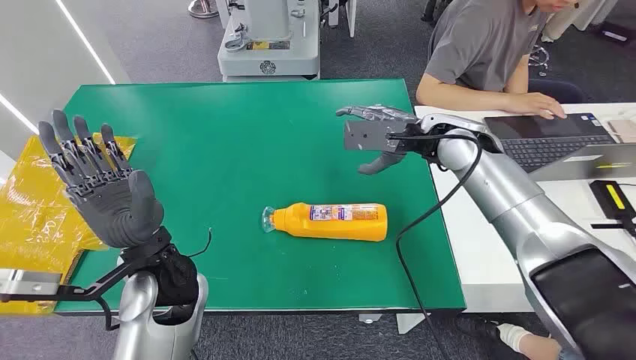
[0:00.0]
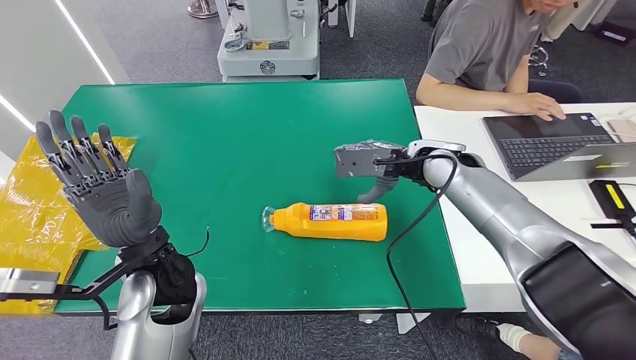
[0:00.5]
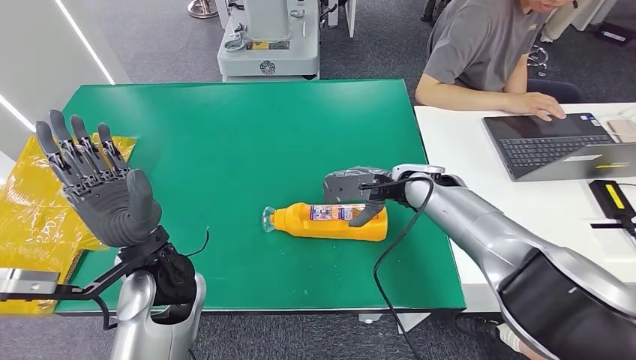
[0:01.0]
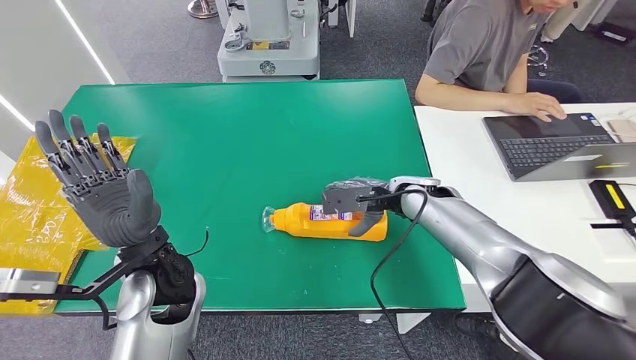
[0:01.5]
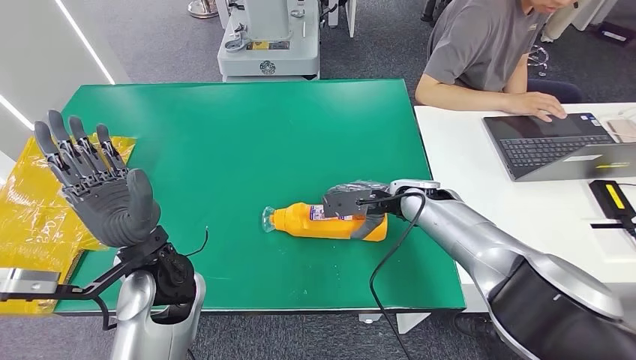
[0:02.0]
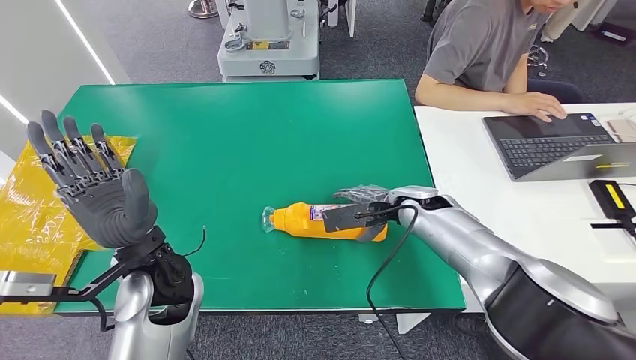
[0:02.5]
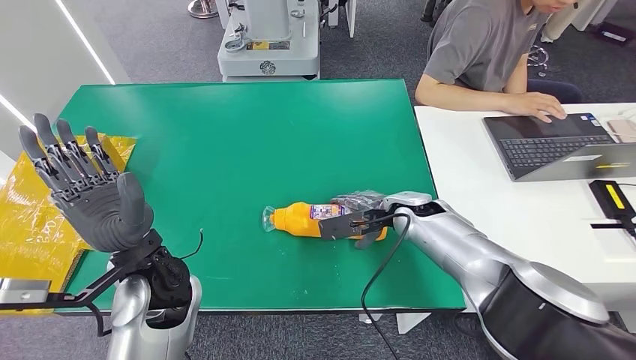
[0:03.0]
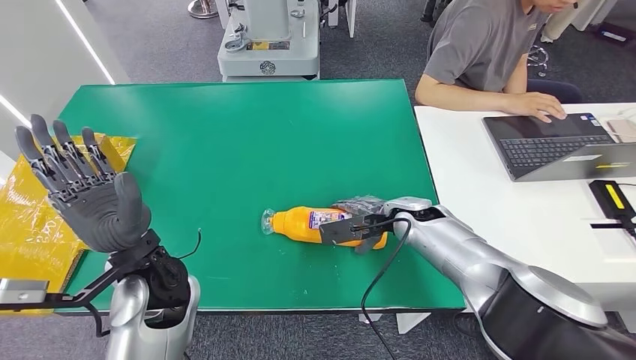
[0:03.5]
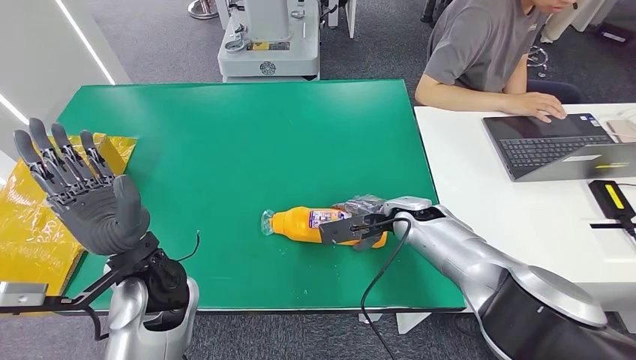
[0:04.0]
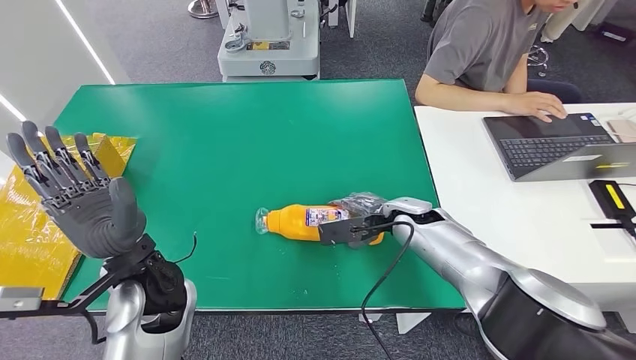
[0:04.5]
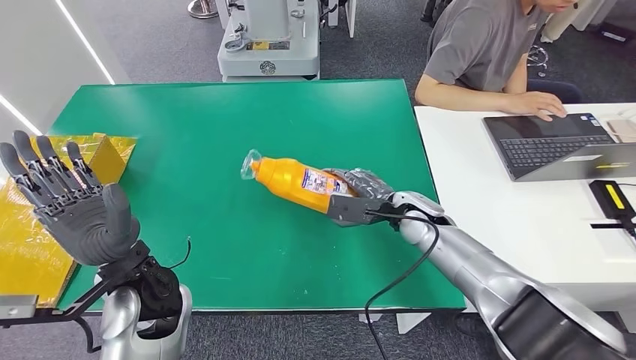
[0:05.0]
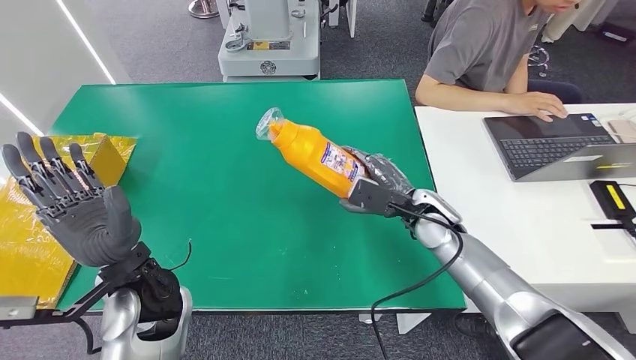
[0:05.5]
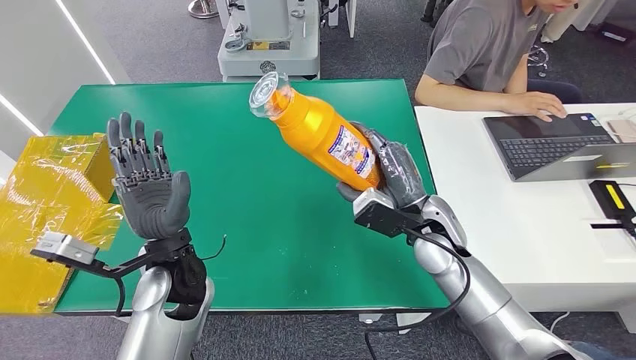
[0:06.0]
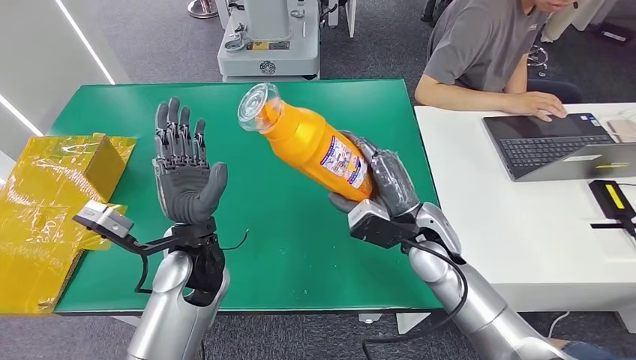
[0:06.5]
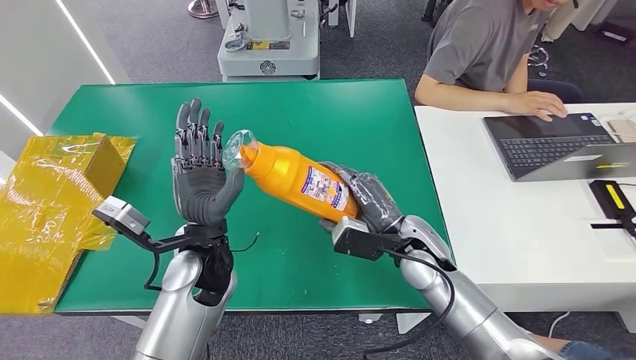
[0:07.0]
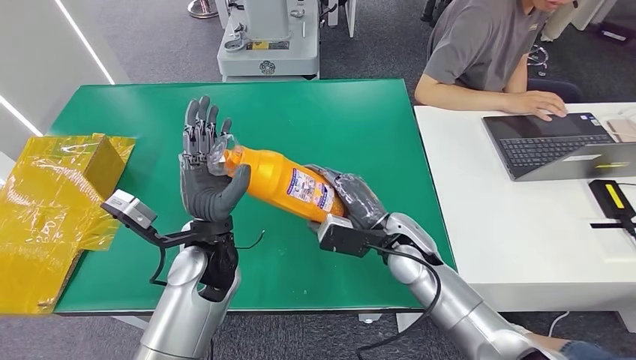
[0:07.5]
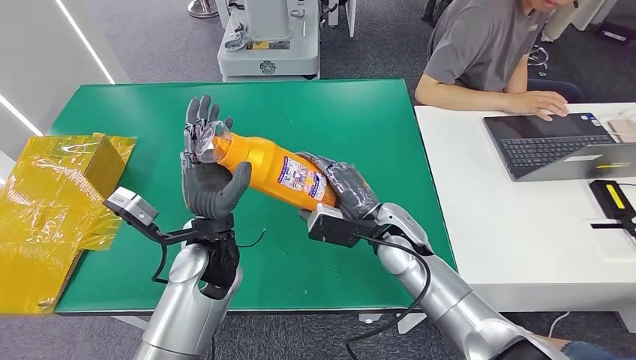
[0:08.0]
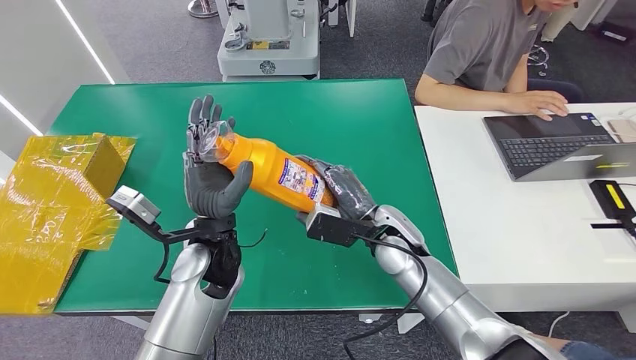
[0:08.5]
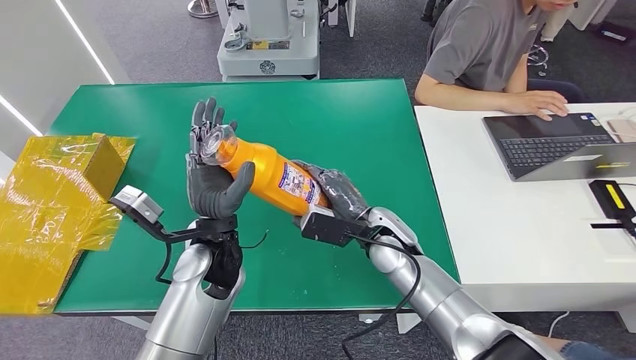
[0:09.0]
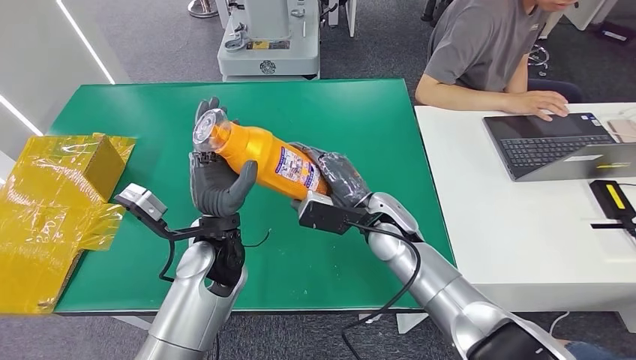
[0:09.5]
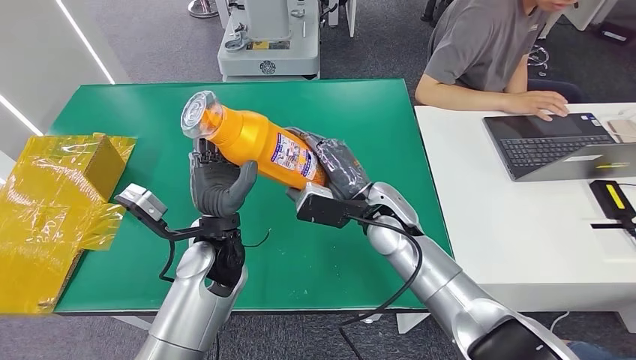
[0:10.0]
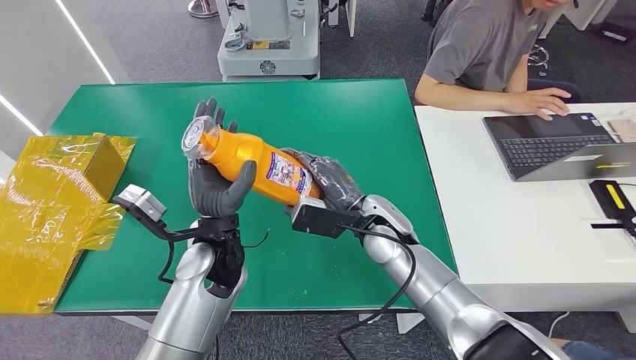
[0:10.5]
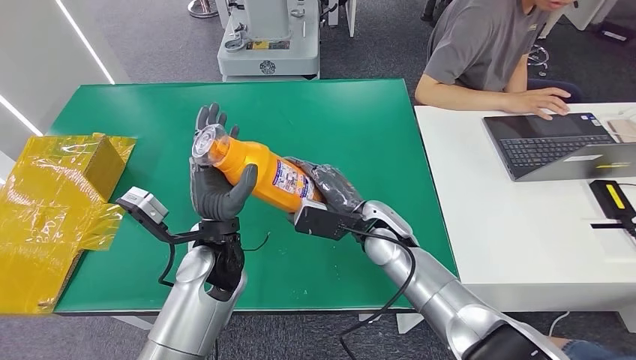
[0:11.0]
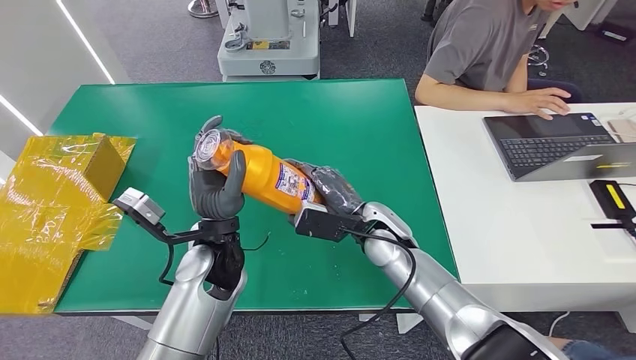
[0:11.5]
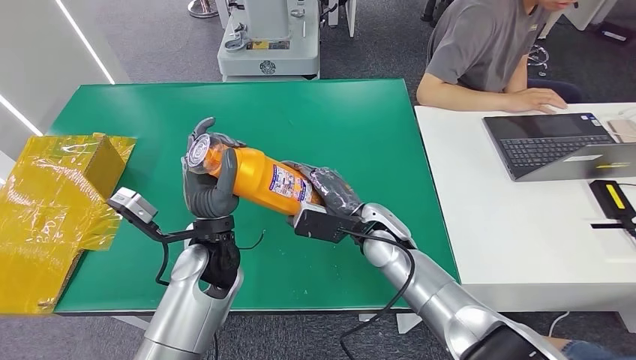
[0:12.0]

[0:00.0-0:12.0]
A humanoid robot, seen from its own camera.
Step, 0:00.0 to 0:06.5: Pick up the bottle from the table.
0:02.0 to 0:04.0: The hands stay close to where they were, moving slightly.
0:08.0 to 0:12.0: The hands make only small movements.

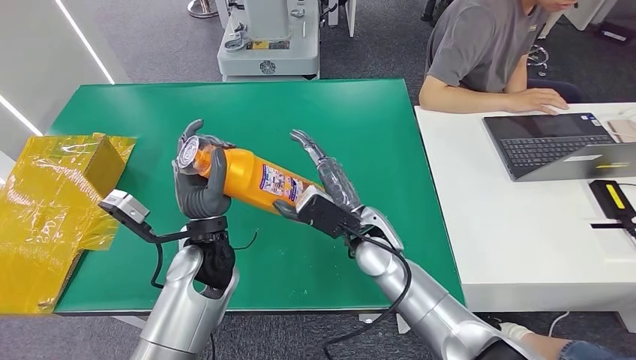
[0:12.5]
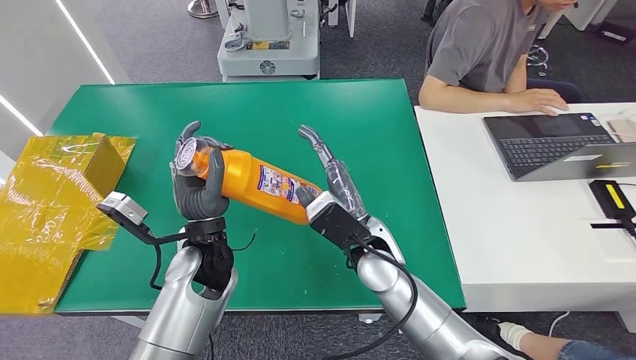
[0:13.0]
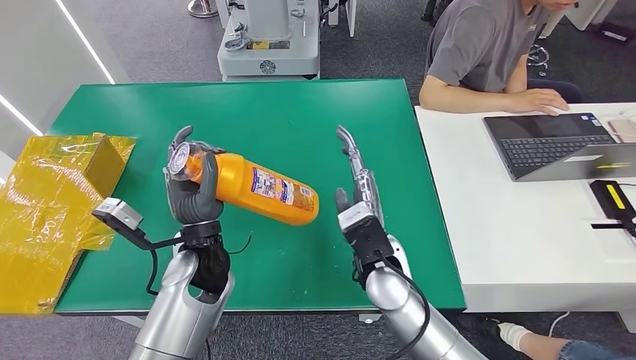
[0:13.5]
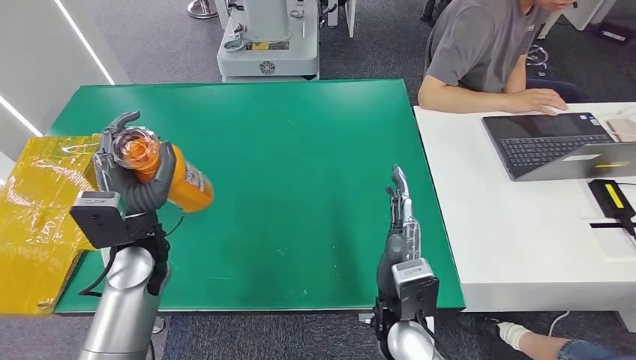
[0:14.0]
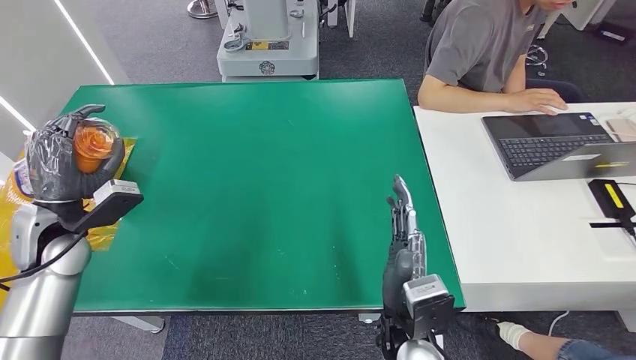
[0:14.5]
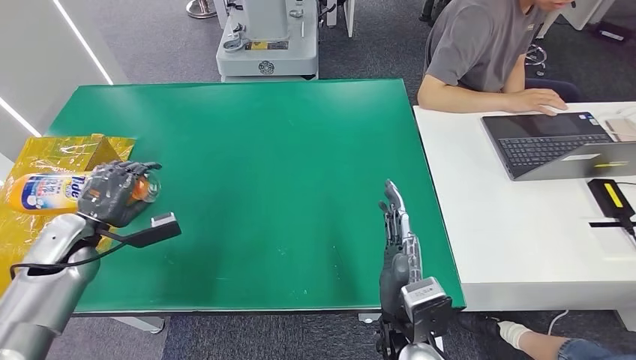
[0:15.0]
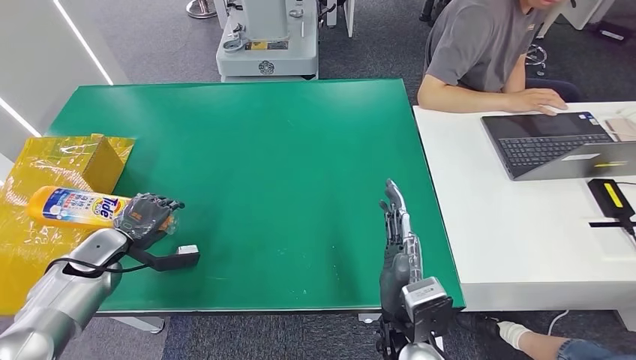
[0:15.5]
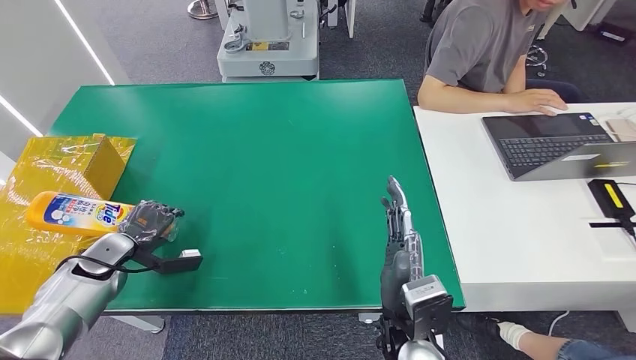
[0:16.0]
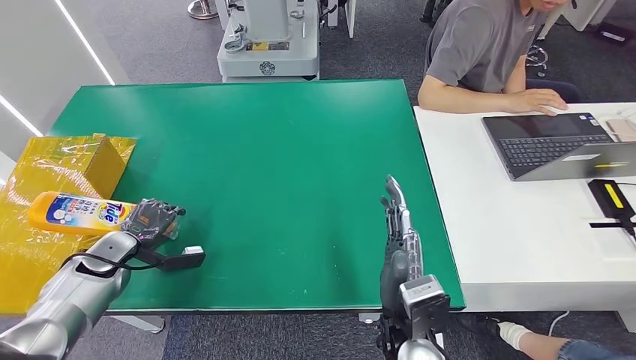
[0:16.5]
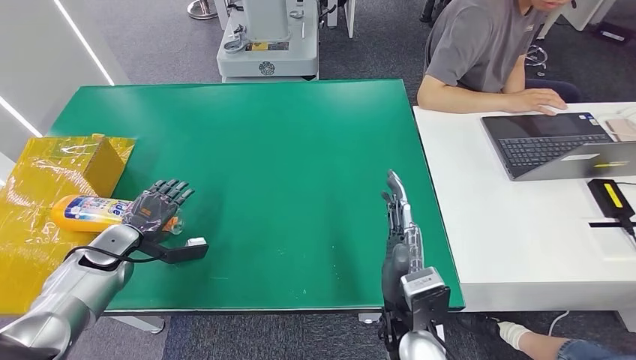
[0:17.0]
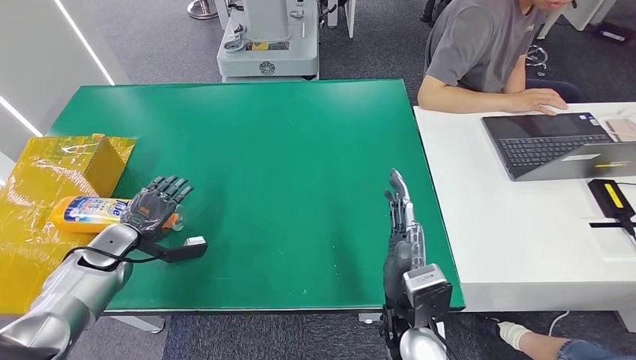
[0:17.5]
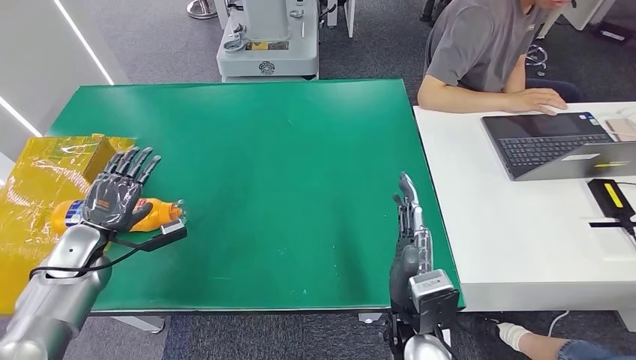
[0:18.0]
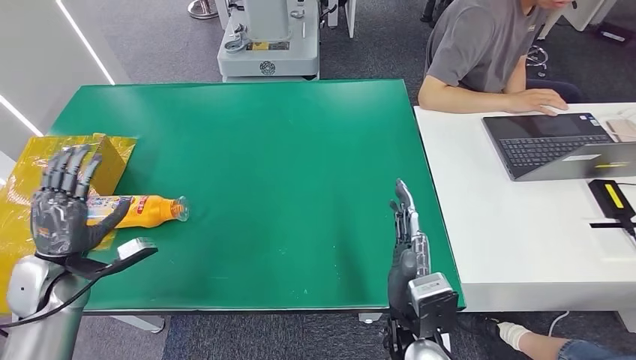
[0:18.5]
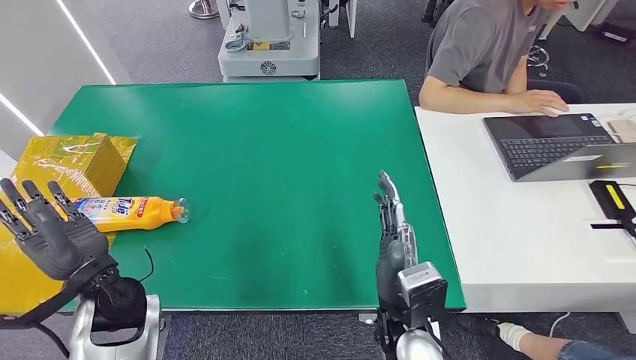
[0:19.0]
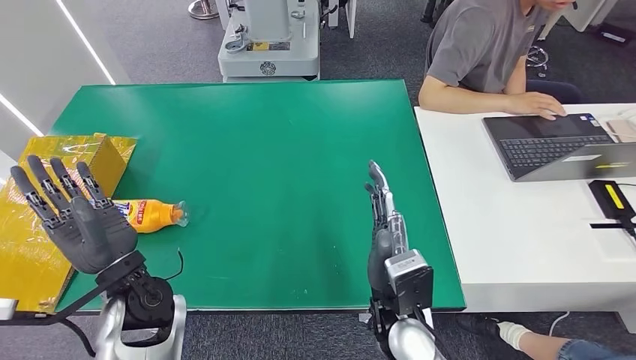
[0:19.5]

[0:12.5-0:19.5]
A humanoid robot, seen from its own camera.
Step, 0:12.5 to 0:19.5: Turn the bottle to the front side.
0:14.5 to 0:16.0: The left hand is displaced downward by approximately 15 cm.
0:16.0 to 0:17.5: The hands make only small movements.
0:17.5 to 0:19.5: The left hand goes roughly 25 cm to the right, upward and backward.

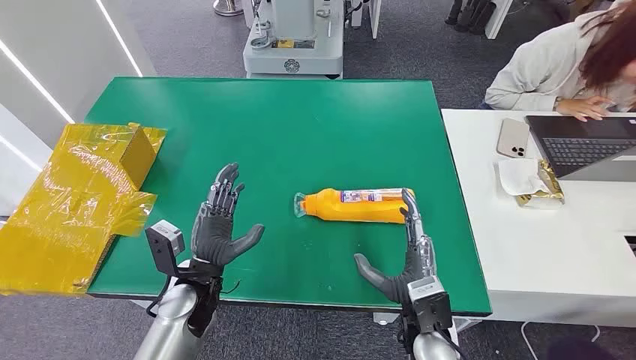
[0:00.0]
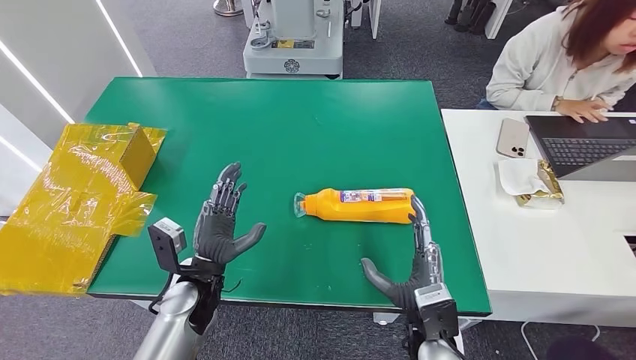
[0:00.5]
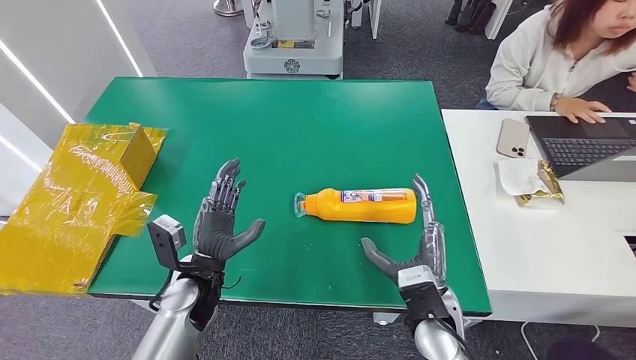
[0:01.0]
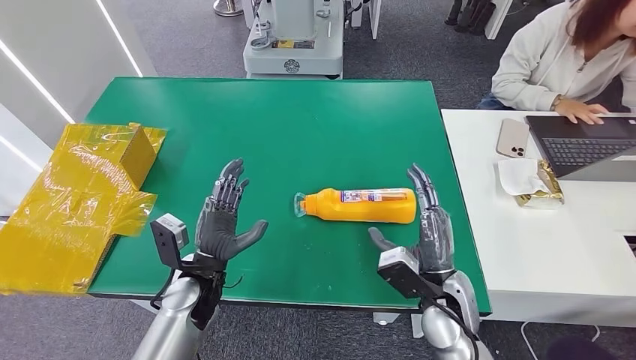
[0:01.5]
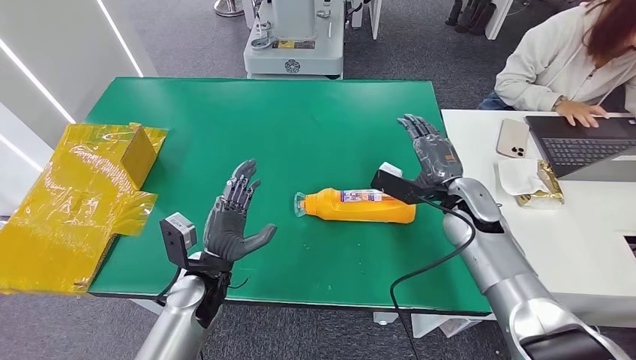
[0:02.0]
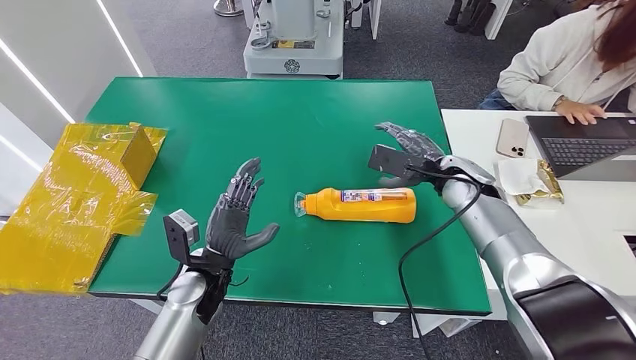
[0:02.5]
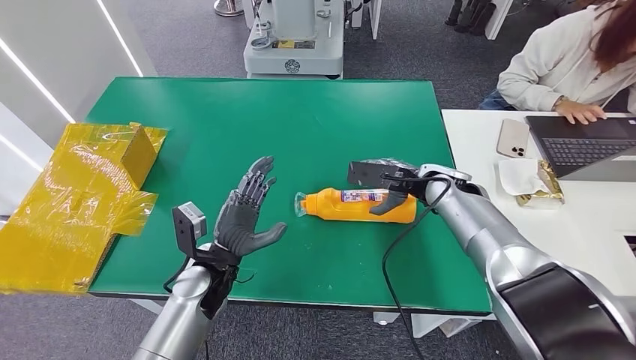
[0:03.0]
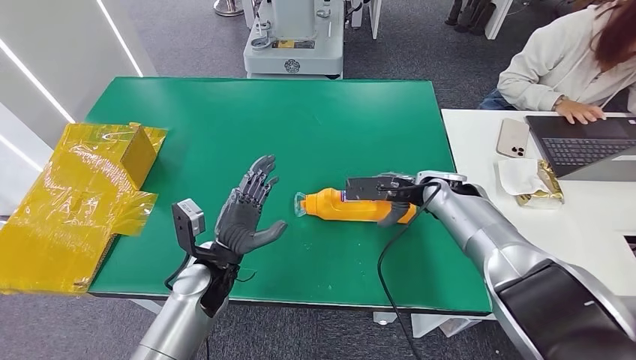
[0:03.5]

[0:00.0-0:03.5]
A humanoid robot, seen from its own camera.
0:02.0 to 0:03.5: The right hand moves roughly 5 cm.
